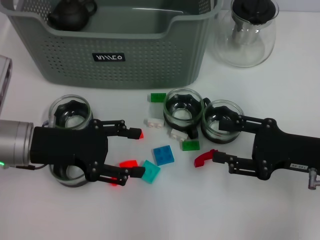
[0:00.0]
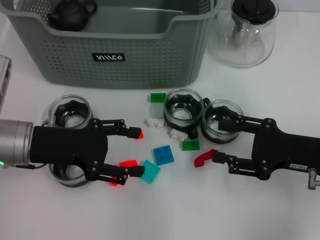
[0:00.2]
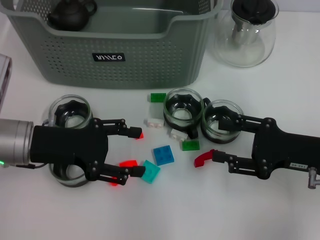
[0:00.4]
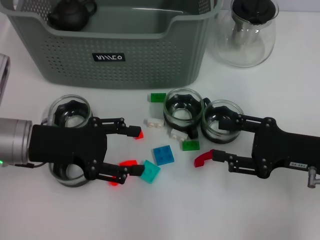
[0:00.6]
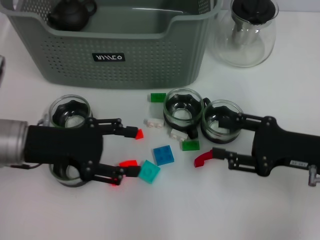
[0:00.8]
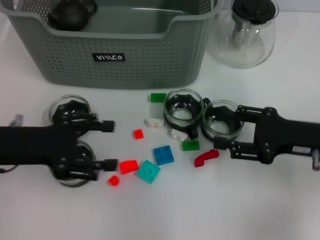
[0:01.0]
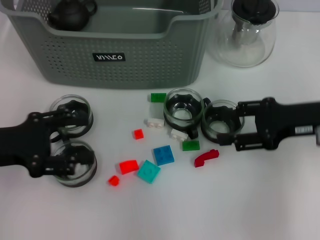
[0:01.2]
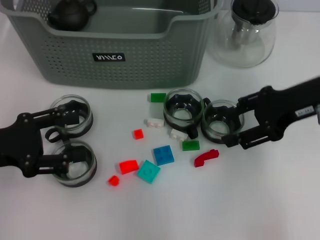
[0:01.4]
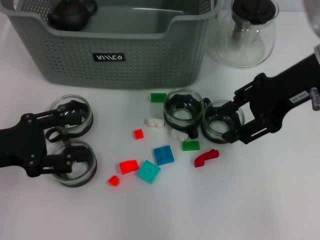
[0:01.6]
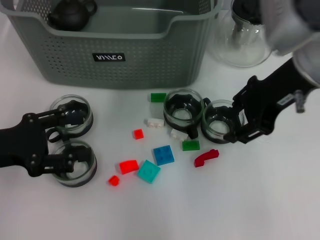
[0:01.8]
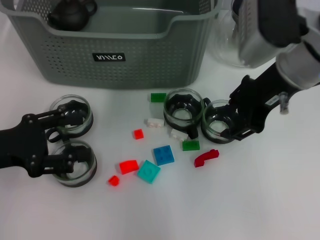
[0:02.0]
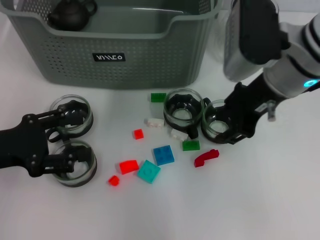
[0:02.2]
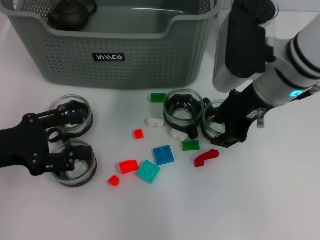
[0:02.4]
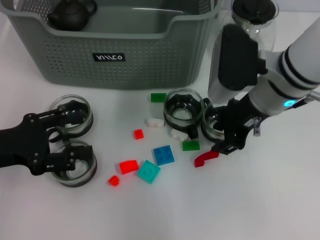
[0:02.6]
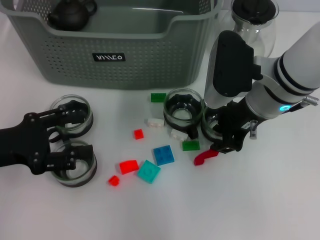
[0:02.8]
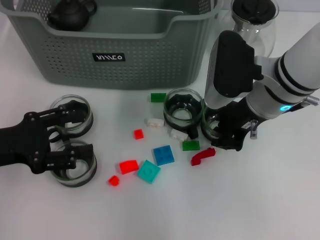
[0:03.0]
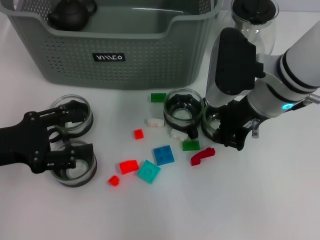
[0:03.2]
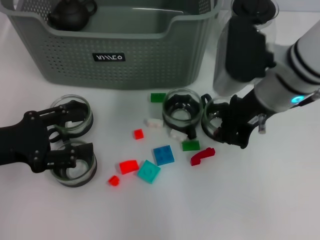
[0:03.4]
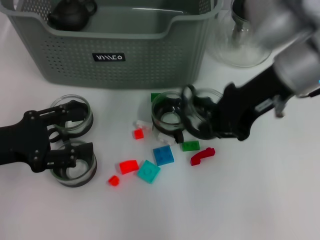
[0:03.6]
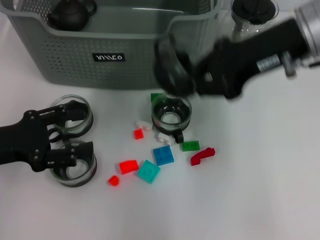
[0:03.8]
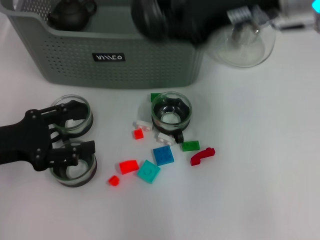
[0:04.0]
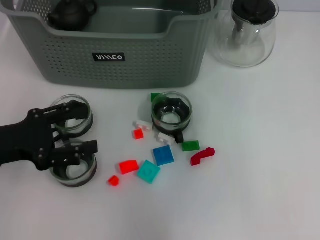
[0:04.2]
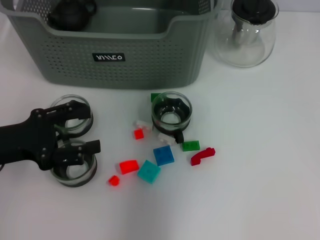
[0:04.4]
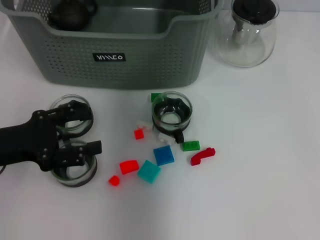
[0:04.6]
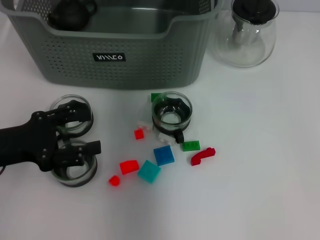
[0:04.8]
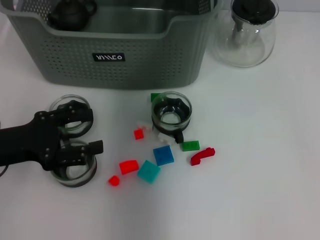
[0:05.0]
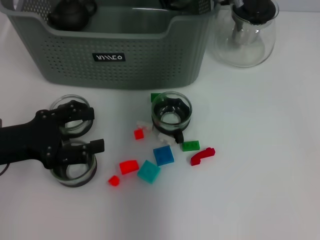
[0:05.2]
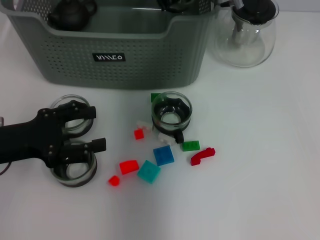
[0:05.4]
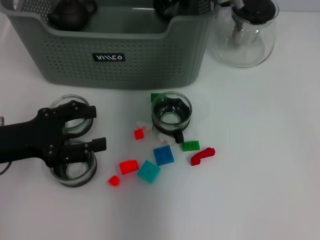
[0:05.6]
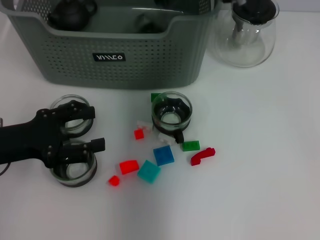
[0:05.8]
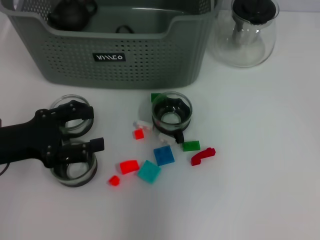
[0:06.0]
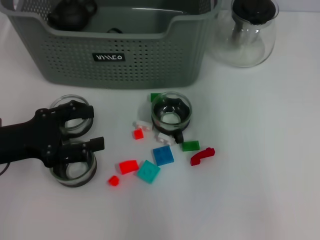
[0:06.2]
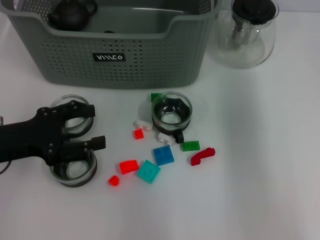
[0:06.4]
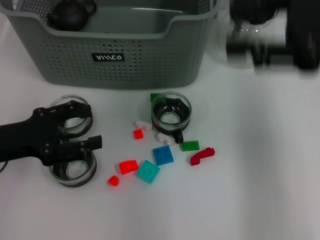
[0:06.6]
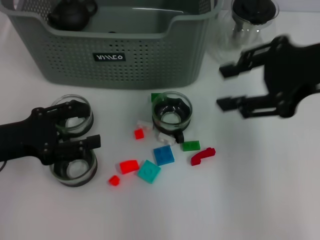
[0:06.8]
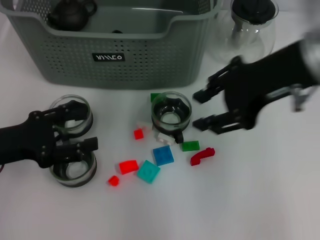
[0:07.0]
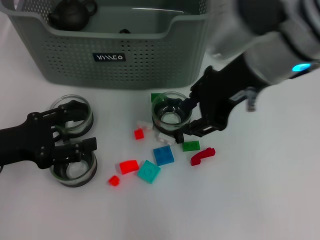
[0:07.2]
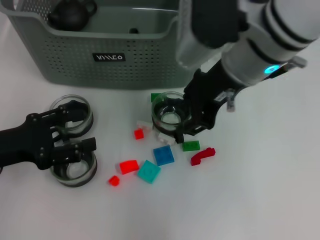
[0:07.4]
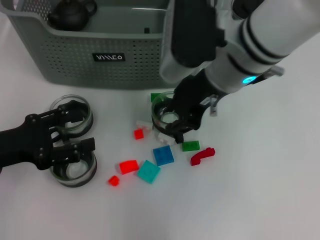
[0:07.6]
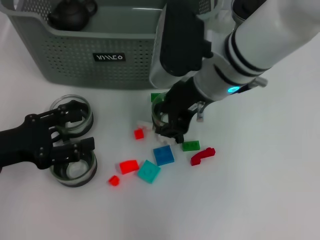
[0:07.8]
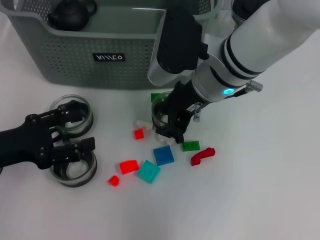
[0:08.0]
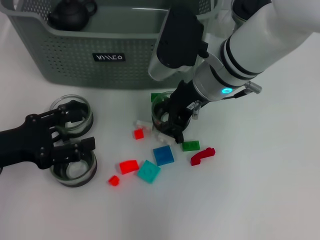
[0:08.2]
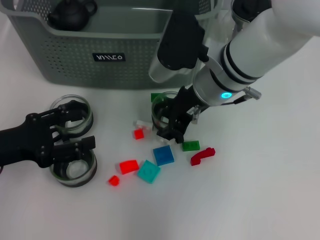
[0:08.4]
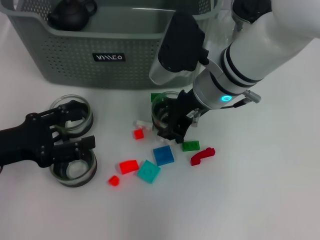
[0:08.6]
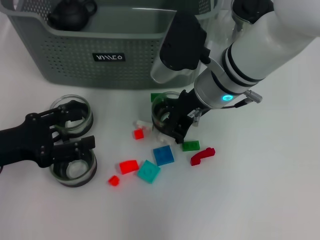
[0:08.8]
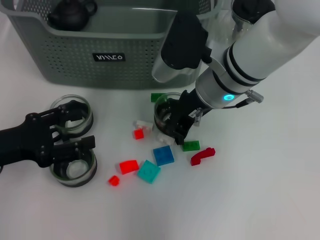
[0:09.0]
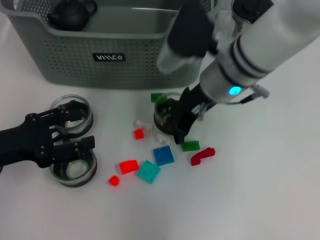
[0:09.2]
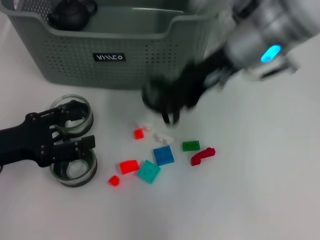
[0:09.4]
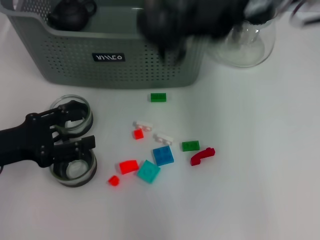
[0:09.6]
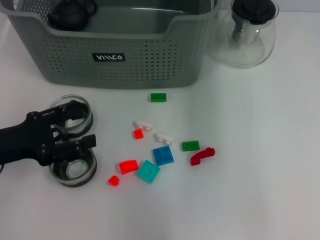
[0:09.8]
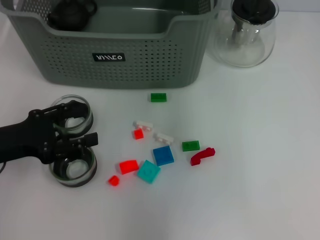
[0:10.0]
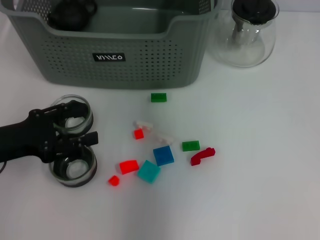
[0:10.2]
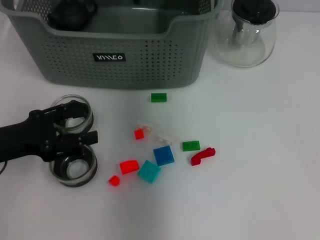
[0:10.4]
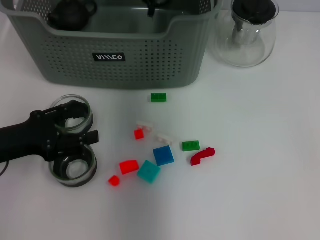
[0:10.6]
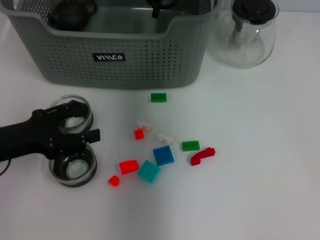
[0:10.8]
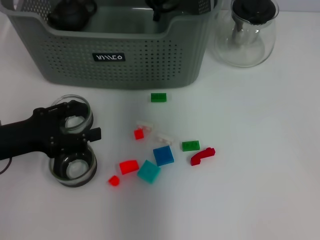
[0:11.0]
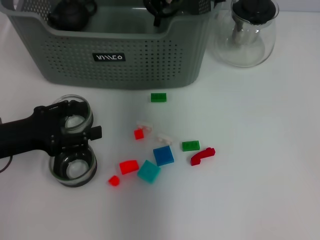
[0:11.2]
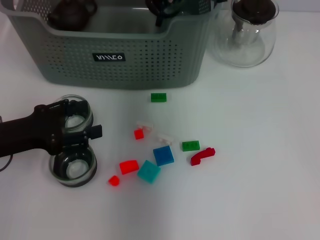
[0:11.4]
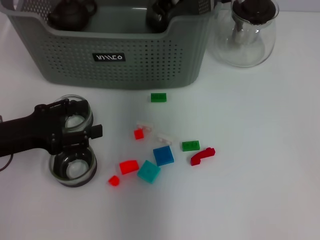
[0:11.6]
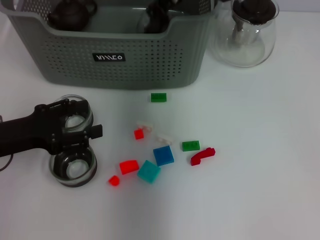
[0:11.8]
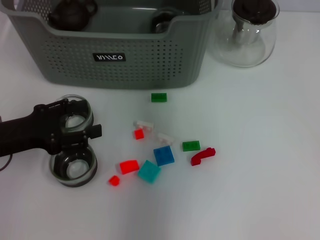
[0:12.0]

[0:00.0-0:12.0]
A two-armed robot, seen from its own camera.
Task of the whole recording: pick up the teacup on the table and place it into the storage bin, pick up the block on the table and place it into the storage bin.
Step, 0.0 to 3.2 s: Grasp the cup with right gripper.
Step, 3.4 to 5.8 s: Place the cup in the storage box with right gripper.
Step, 6.2 to 8.8 s: Grasp the cup with right gripper.
0.0 to 1.6 s: The left gripper travels to the left by some 5 cm. Meanwhile the right gripper travels upward, forward and to the left by some 20 cm.
1.6 to 3.0 s: The right gripper shifts approximately 10 cm downward and to the left, and closes up.
3.0 to 4.4 s: The right gripper moves upward, forward and to the left, about 20 cm, and closes up.
6.0 to 7.6 s: The right gripper heads backward, covering approximately 15 cm.
7.6 to 9.0 s: The right gripper is displaced downward by about 5 cm, and closes its fingers.
9.0 to 10.4 s: The right gripper goes some 15 cm forward and upward.
10.4 to 12.0 s: The right gripper opens its fingers.

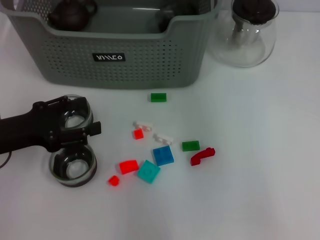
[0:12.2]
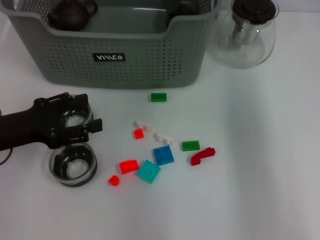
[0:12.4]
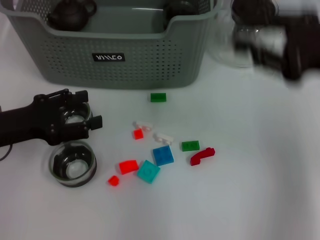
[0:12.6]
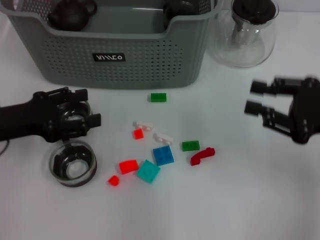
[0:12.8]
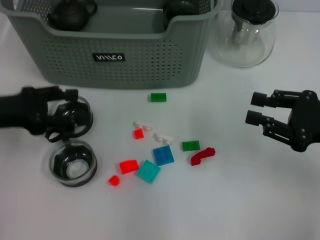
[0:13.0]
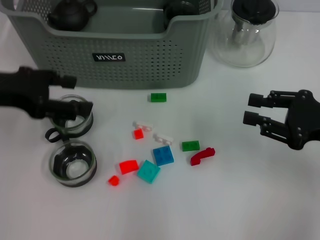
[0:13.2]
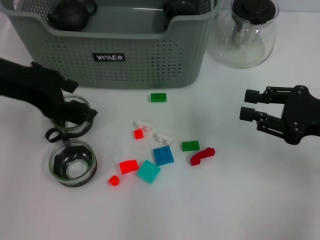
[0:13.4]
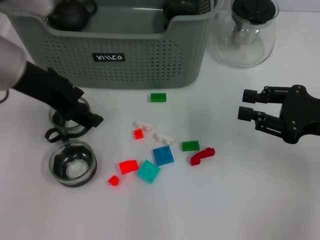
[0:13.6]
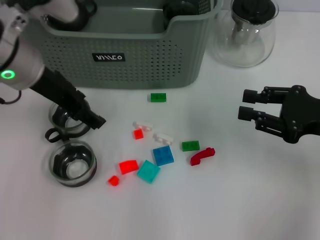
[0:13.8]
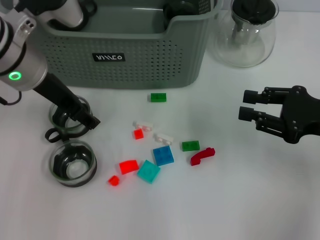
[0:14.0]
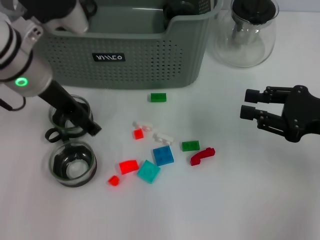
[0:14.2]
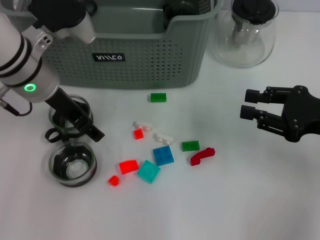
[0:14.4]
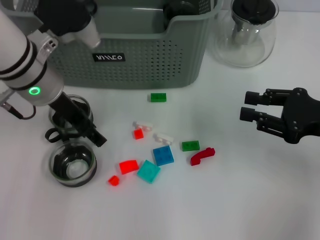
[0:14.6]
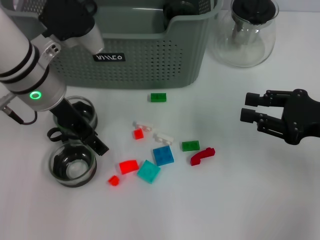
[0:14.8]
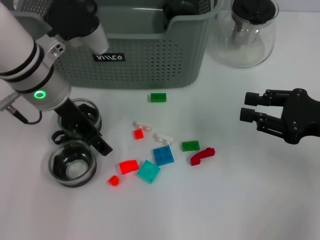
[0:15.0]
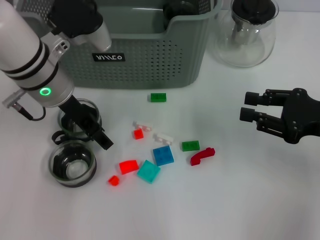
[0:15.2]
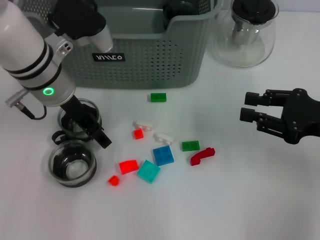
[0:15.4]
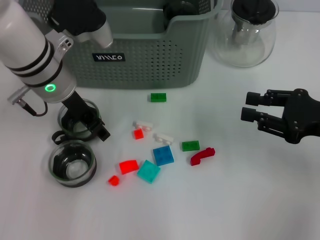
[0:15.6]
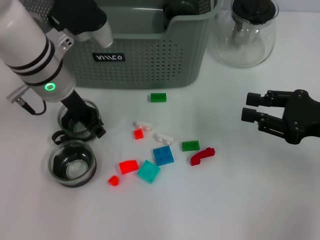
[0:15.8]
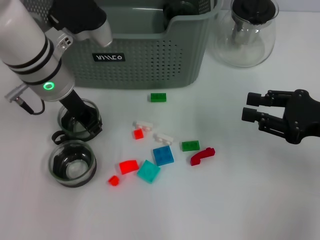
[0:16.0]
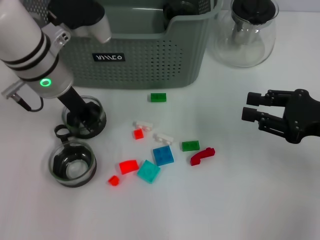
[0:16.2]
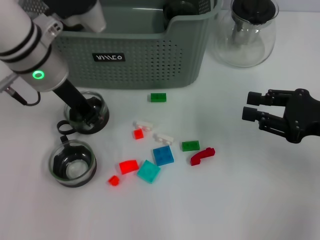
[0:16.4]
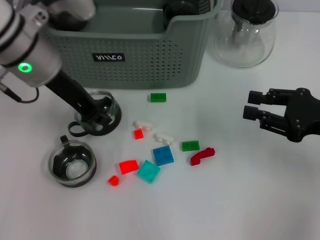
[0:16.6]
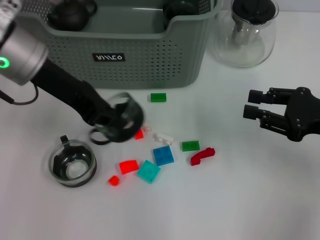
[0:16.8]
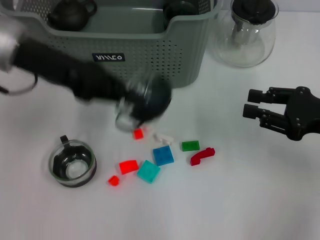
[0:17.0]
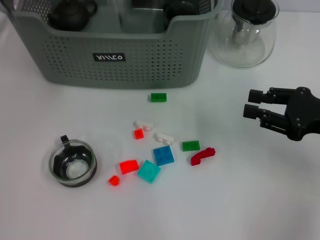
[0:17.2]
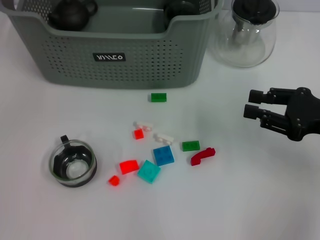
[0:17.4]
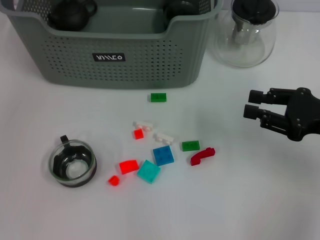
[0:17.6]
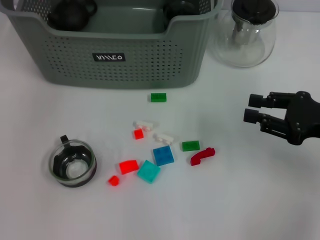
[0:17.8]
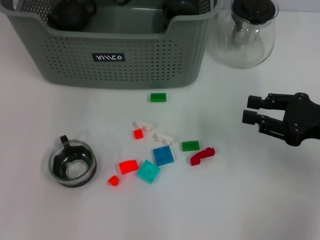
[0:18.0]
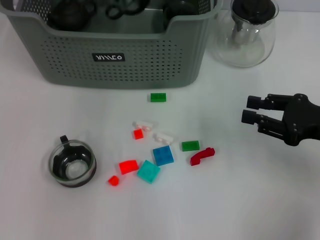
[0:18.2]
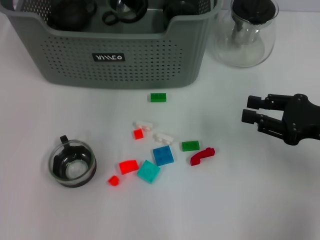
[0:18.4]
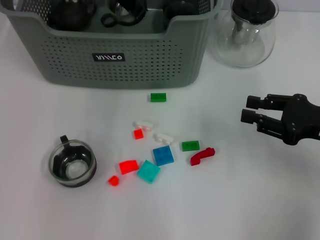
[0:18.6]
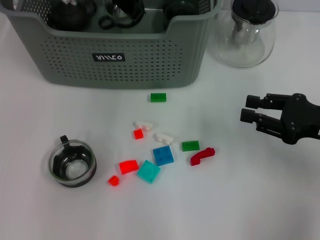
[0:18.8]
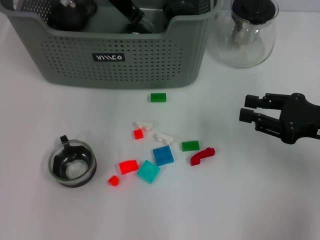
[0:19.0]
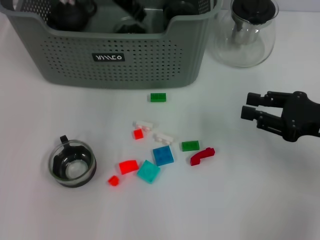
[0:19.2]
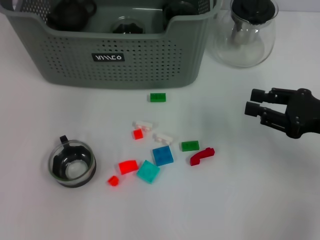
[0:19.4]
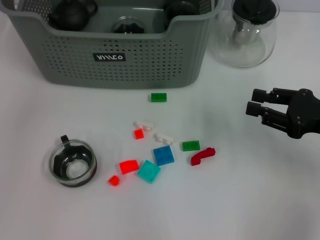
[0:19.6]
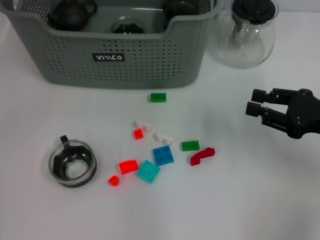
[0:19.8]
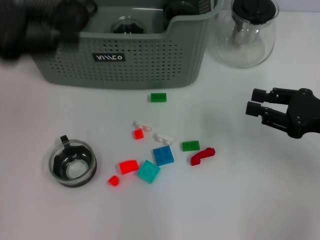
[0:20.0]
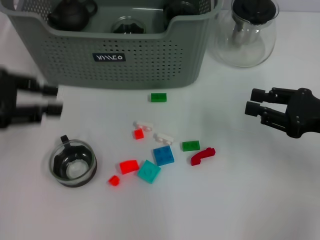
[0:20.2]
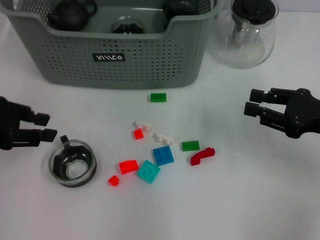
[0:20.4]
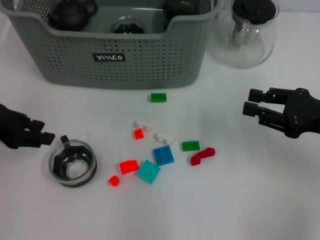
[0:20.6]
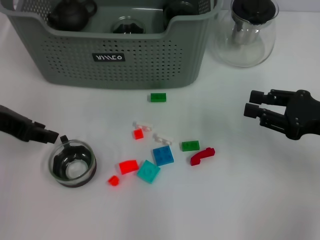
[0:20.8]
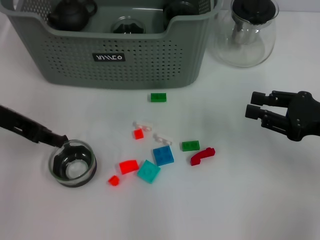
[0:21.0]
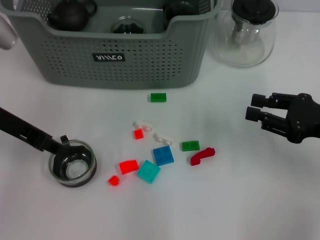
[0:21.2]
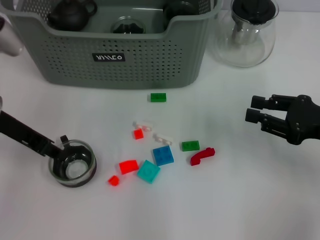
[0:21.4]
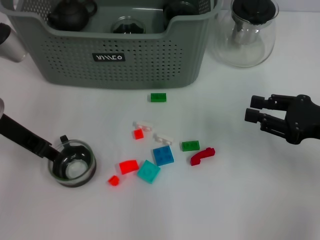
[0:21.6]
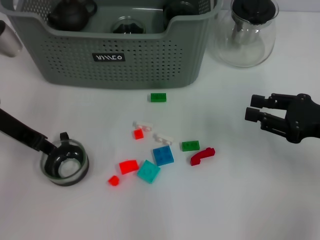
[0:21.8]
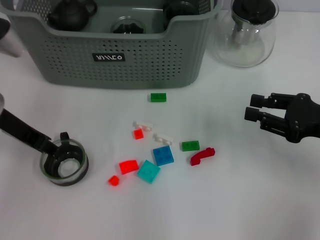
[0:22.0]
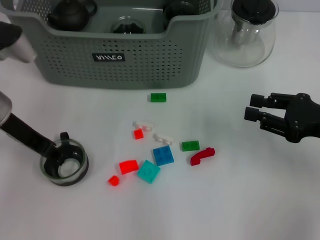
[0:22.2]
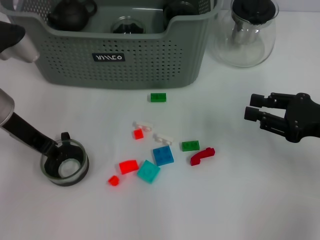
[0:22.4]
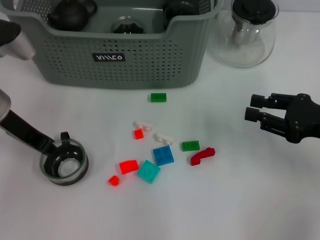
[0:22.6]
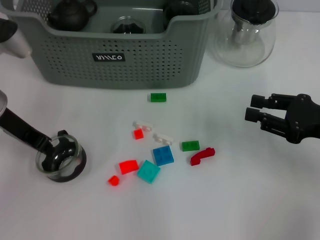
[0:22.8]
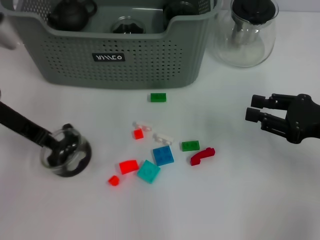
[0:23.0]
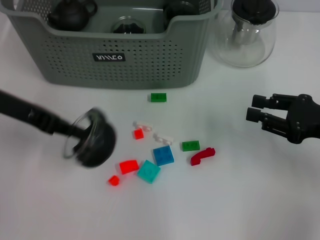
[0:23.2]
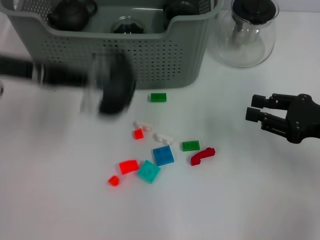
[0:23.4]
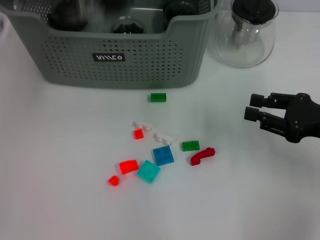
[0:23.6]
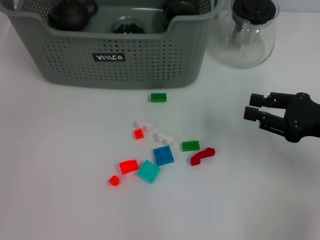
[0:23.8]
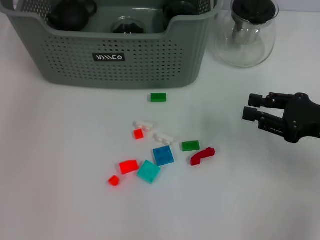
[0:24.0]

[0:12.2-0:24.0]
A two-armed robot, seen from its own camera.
Task of the whole recording: pick up the teacup on the table and place it into the storage bin, pick up the block on the table and place it into the storage bin.
Step, 12.8 to 16.0 s: Grasp the cup with left gripper.
Step, 16.2 to 19.8 s: Place the cup in the storage box with left gripper.
Step, 20.0 to 21.6 s: Grasp the cup with left gripper.
12.2 to 13.6 s: The right gripper travels downward, backward and to the right by approximately 30 cm, while the left gripper is displaced upward, to the right and forward by roughly 20 cm.
13.6 to 15.2 s: The left gripper goes approximately 5 cm downward.
15.2 to 16.6 s: The left gripper closes.
16.6 to 18.2 s: The left gripper heads forward and to the right, covering about 15 cm.
18.2 to 19.6 s: The left gripper is displaced to the left, backward and upward by roughly 15 cm, and opens its fingers.
19.6 to 21.0 s: The left gripper shifts some 15 cm downward, backward and to the left.
21.0 to 22.6 s: The grippers stay close to where they were, moving slightly.
22.6 to 24.0 s: The left gripper heads upward and forward, covering about 20 cm, and closes up.
